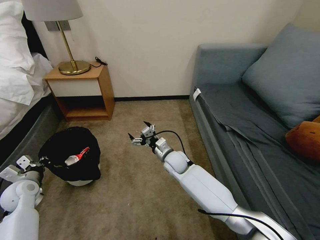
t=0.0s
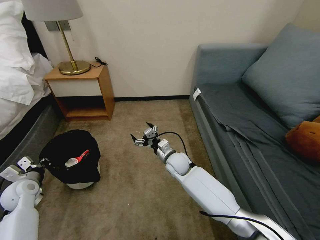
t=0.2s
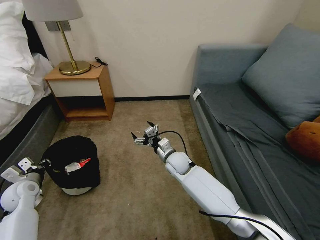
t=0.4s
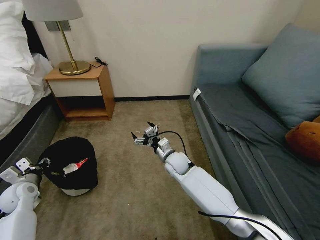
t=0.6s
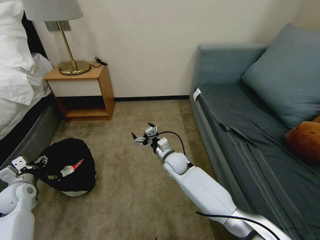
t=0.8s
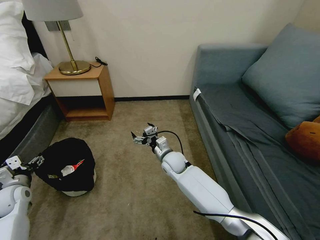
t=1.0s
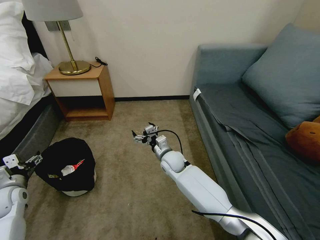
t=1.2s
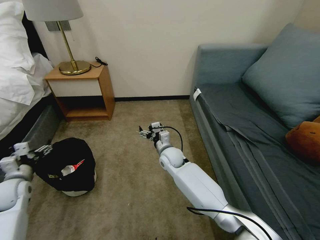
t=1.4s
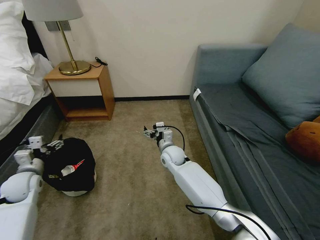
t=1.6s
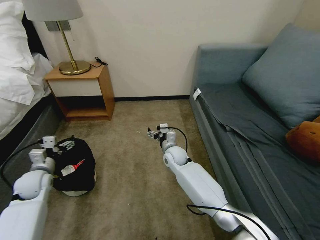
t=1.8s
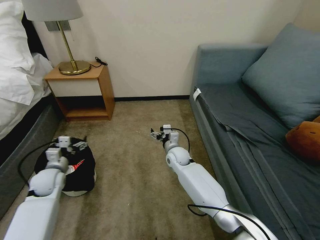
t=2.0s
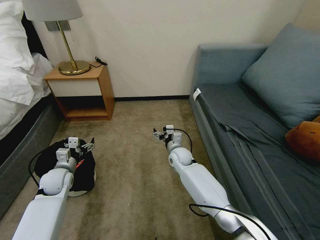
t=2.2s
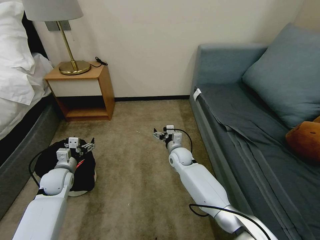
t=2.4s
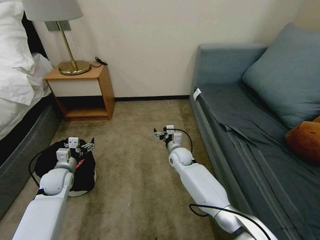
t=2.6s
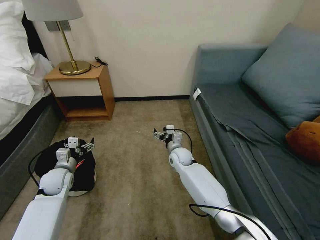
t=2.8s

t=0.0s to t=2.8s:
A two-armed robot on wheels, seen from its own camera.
Task of the whole recording: Pick up the trash bin, then pick up the garbage on the floor and place it into the trash bin.
t=0.0s to t=1.4s: The left gripper opens.
t=1.4s to t=2.8s: The right gripper moves about 5 cm. The left gripper moves to the right and forward, about 10 cm.

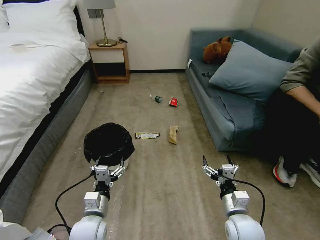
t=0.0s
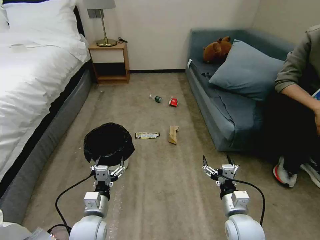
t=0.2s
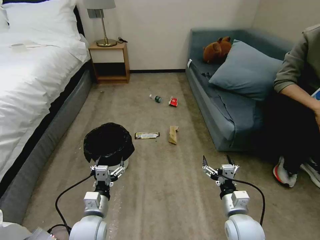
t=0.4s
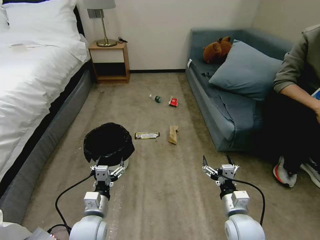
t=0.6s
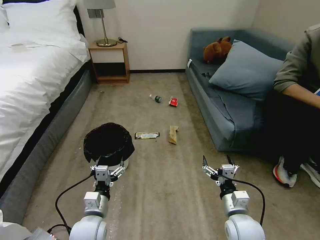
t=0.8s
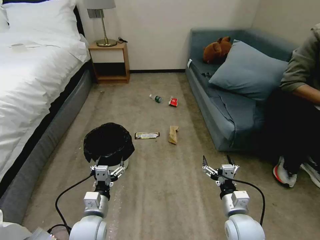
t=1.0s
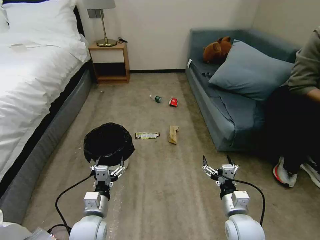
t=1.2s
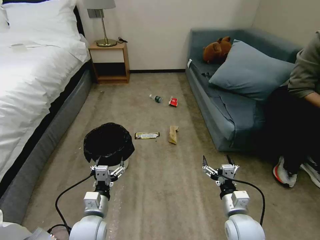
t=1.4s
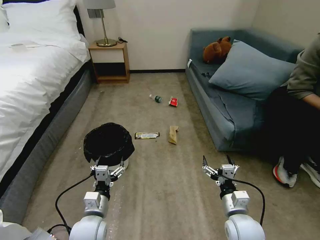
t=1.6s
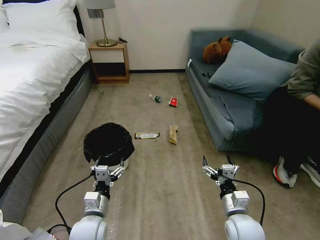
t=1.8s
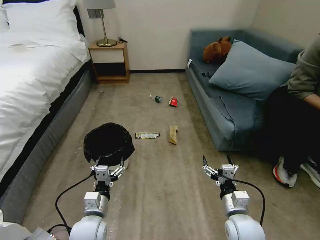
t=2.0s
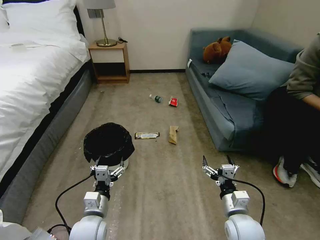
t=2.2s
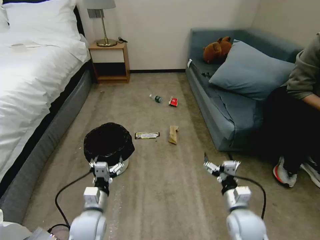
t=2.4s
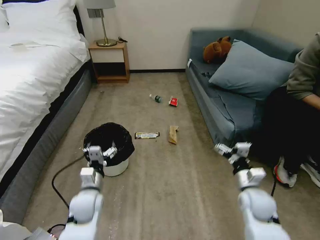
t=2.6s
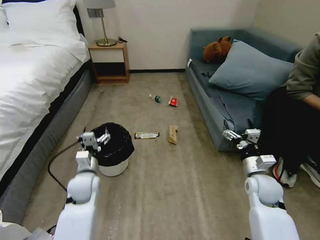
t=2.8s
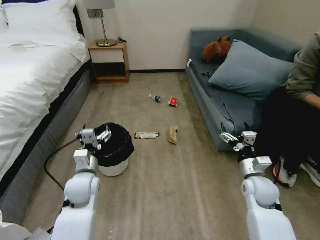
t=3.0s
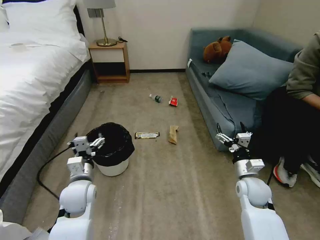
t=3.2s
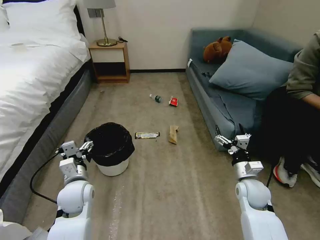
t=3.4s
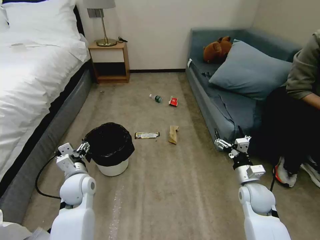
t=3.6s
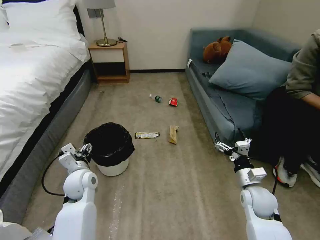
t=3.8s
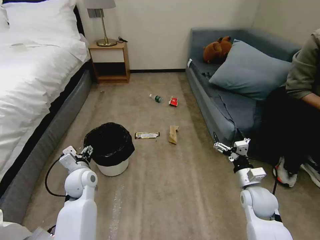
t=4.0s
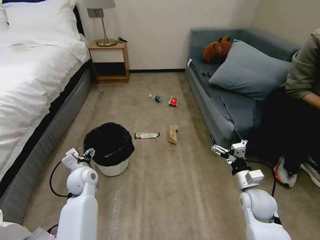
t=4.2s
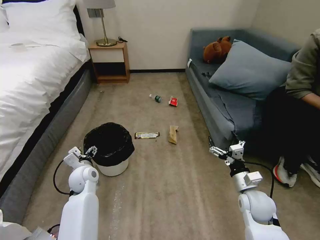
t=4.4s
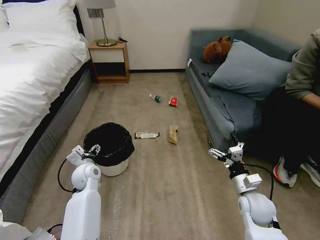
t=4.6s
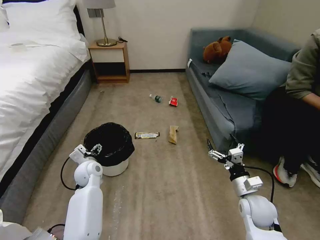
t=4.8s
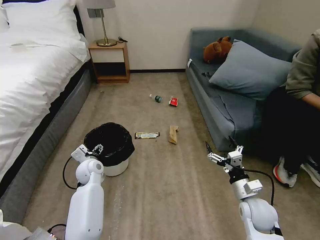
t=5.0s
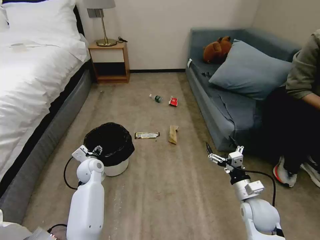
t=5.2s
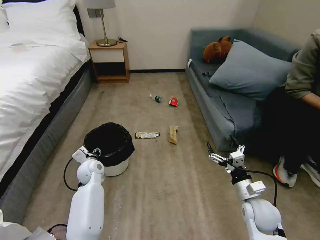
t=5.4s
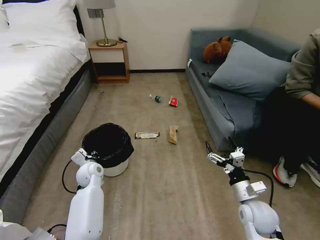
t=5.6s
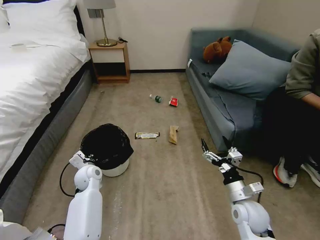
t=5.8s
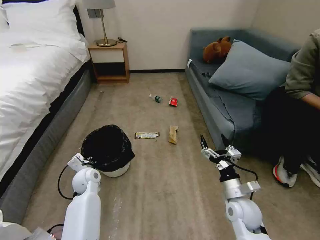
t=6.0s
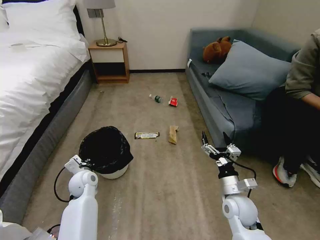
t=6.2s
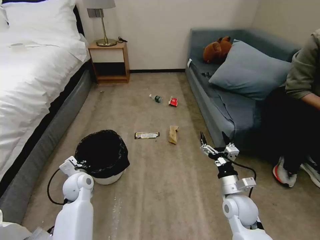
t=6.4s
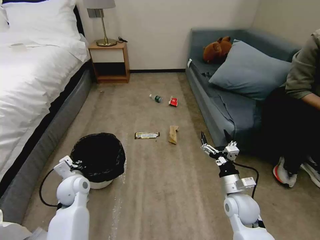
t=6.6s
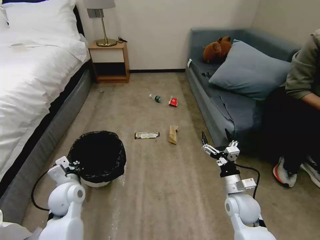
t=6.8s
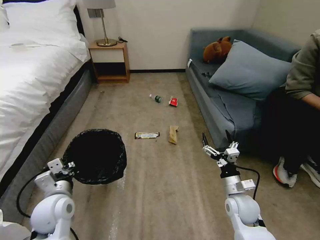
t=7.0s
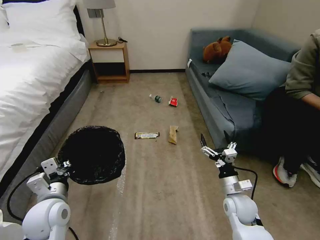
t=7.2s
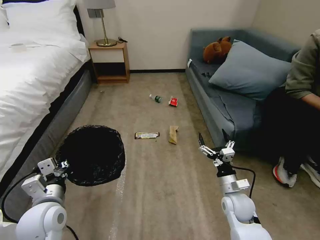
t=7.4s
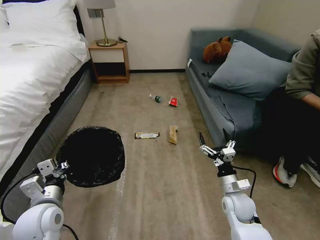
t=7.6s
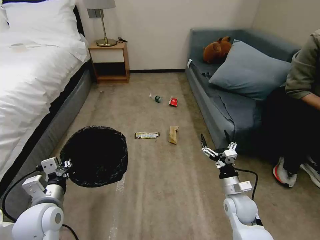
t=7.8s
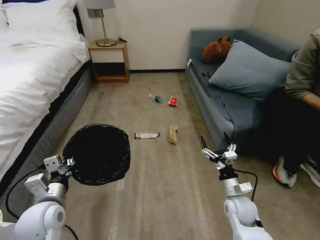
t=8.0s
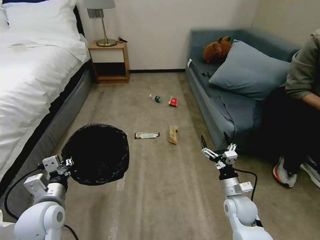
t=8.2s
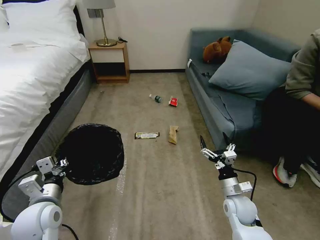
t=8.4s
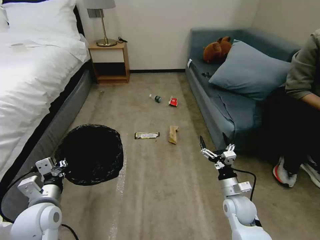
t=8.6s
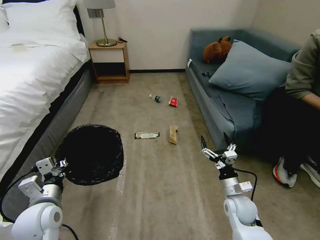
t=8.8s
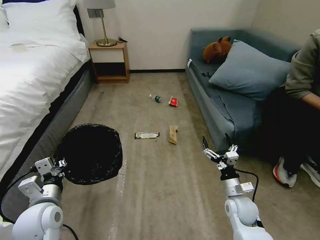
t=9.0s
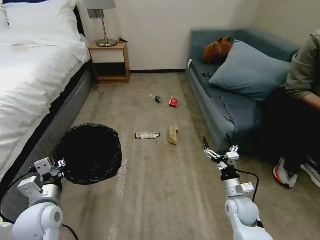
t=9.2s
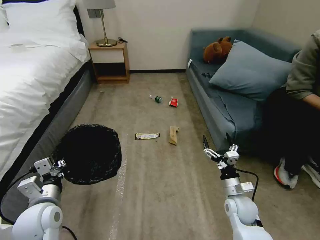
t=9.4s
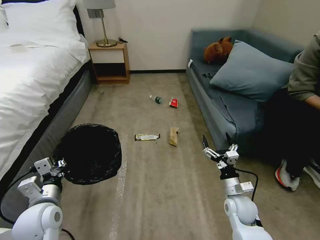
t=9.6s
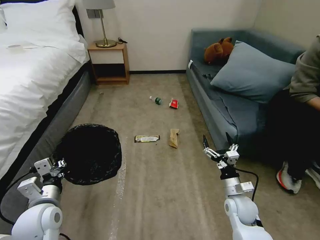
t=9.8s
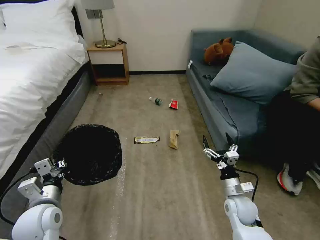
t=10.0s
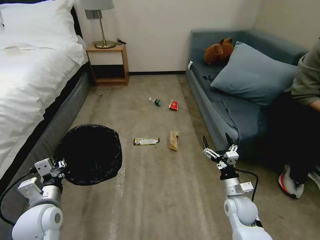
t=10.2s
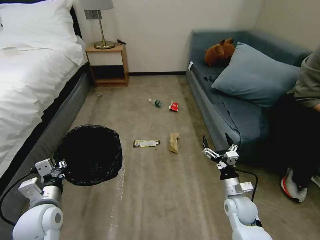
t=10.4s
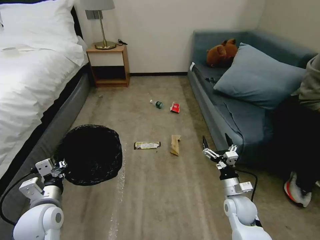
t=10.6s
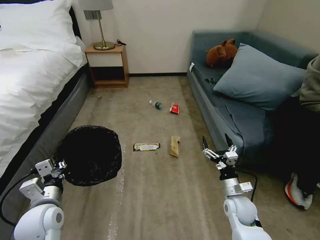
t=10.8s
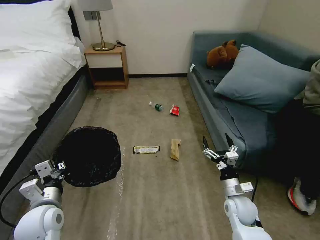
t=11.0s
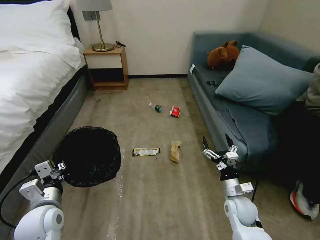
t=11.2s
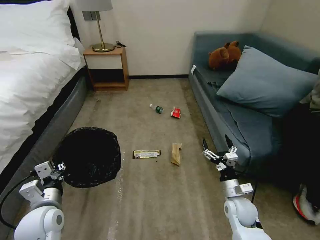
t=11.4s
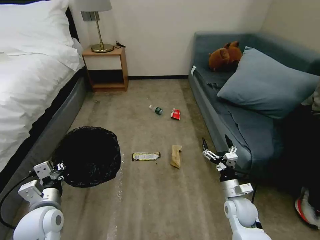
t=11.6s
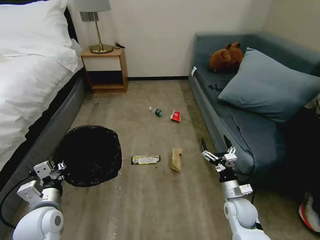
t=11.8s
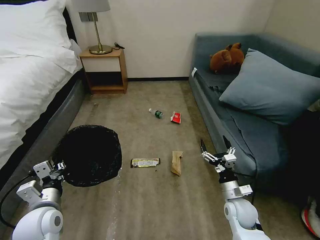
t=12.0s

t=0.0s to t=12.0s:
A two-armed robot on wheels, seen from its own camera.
Task of the whole recording: Pick up the trash bin, then pick up the garbage on the floor and place it into the trash bin.
t=1.6s to t=3.0s: The right gripper goes some 15 cm forward and to the right; the left gripper moves forward and upward, about 10 cm.
t=3.0s to t=4.4s: The left gripper travels forward by roughly 5 cm.
t=4.4s to t=6.0s: The left gripper closes up, while the right gripper changes place by approximately 5 cm.
t=6.0s to t=7.6s: The left gripper heads backward and upward, covering approximately 20 cm.
t=7.6s to t=9.0s: The grippers make only small movements.
t=9.0s to t=10.4s: Neither gripper changes place.

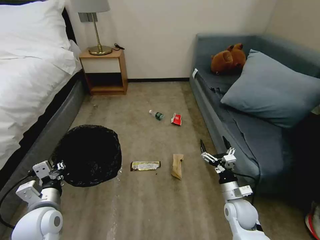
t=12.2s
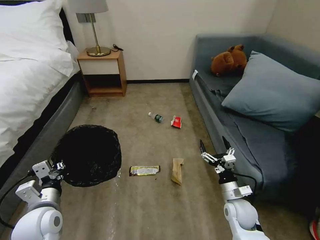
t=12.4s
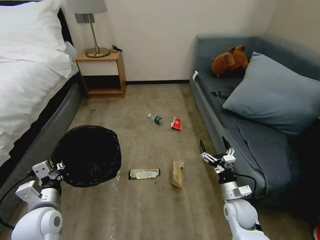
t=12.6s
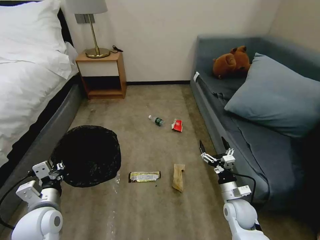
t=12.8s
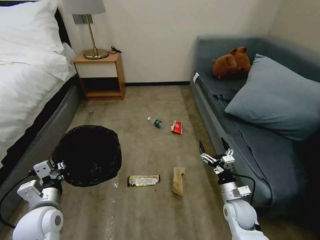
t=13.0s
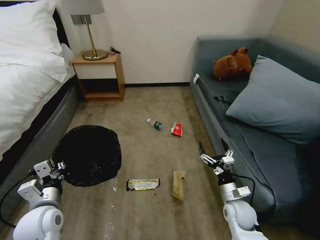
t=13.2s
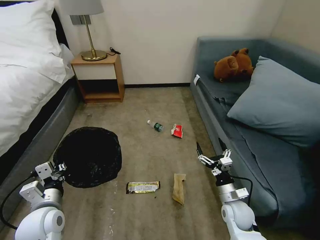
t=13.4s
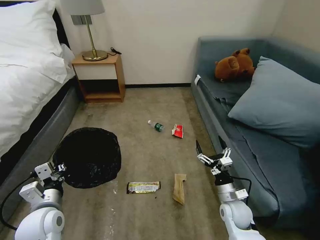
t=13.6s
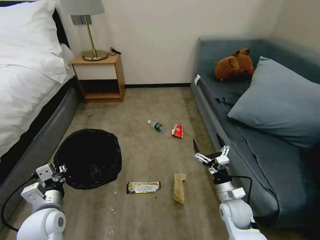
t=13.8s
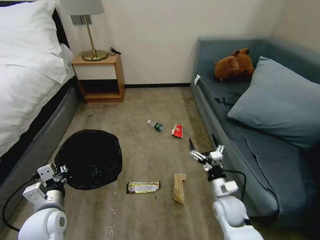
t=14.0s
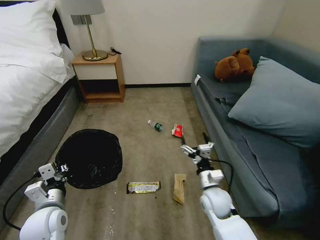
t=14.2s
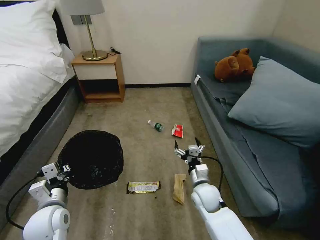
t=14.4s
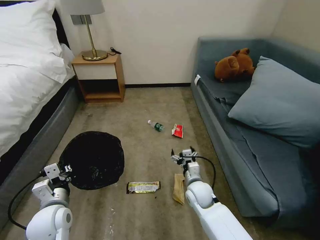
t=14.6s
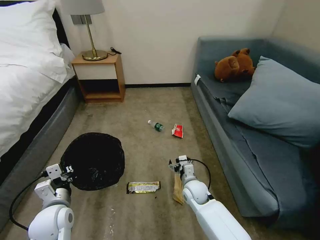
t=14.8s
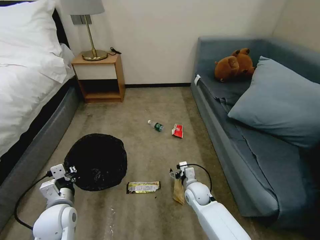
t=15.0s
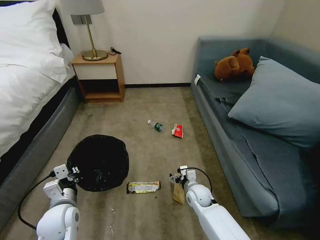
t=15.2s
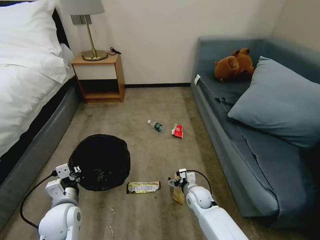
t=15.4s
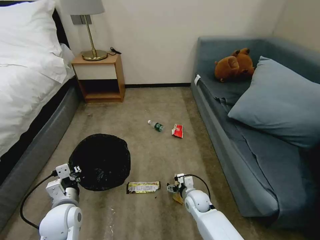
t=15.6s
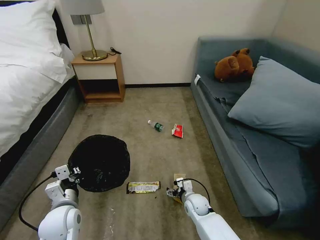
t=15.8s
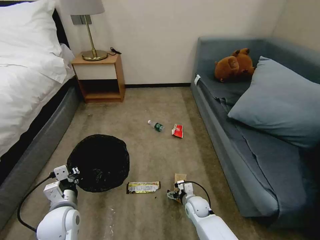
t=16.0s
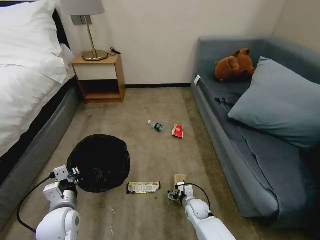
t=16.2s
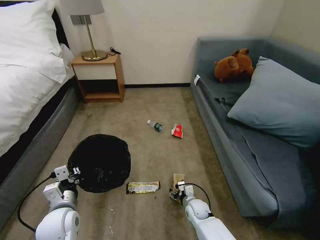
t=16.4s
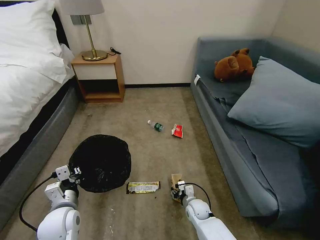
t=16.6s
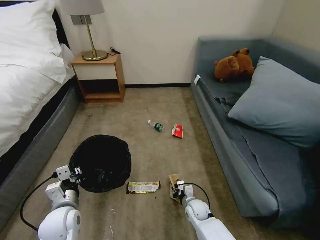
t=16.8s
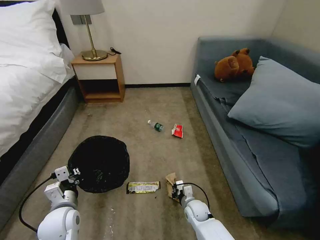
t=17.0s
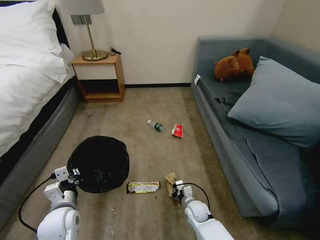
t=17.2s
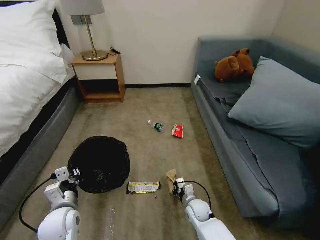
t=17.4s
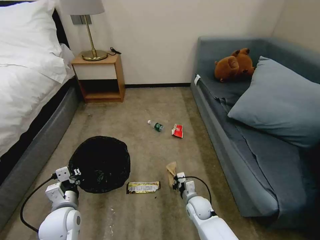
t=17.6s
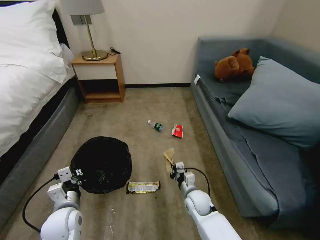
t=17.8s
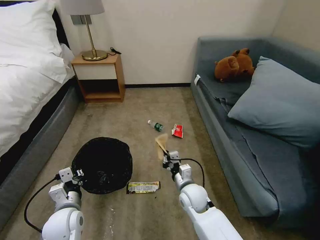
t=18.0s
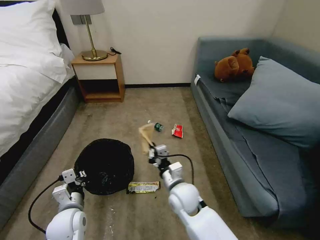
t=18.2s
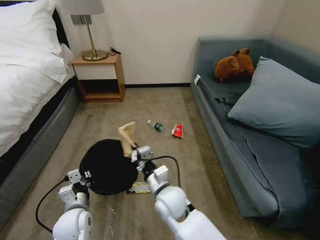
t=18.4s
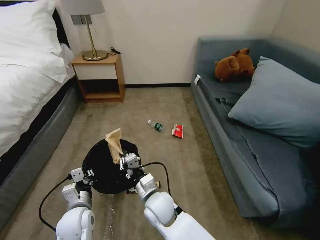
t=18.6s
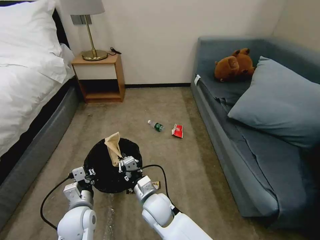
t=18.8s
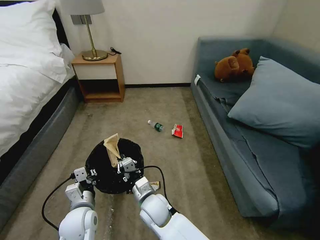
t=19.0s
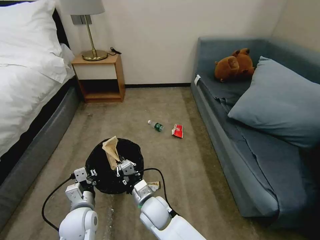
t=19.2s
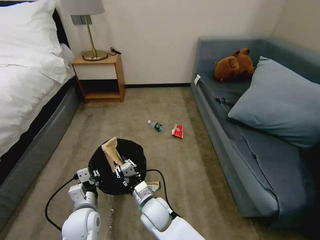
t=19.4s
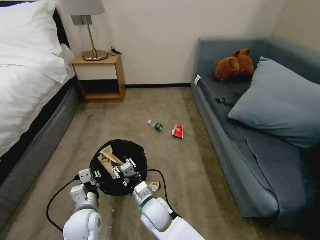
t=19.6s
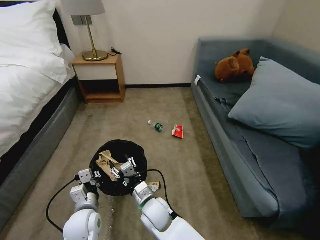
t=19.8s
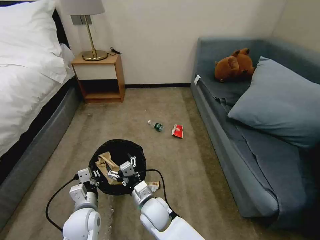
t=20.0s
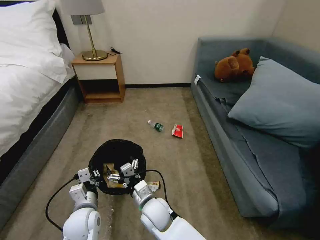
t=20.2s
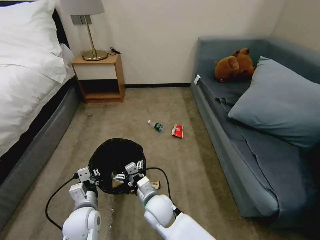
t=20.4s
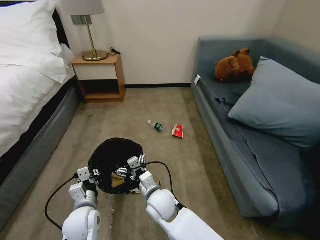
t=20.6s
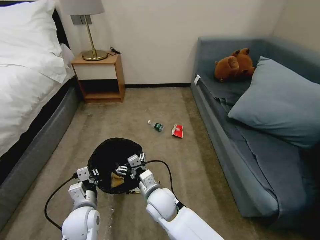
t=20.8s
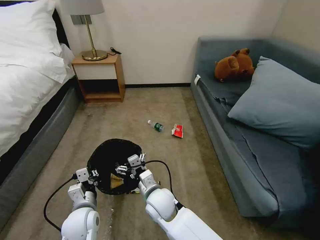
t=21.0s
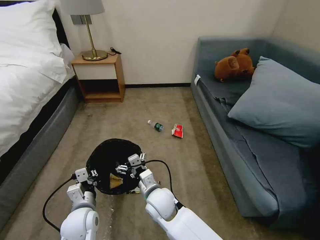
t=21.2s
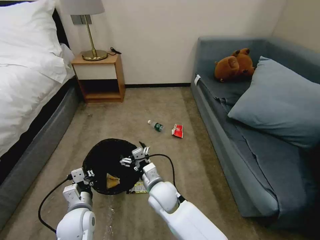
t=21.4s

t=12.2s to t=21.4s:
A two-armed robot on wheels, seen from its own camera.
Task of the whole recording: Pick up the trash bin, then pick up the garbage on the floor and place it into the trash bin.
t=13.8s to t=15.2s: The right gripper goes roughly 15 cm to the left, forward and downward.
t=15.2s to t=16.8s: The right gripper is displaced downward by approximately 5 cm, and closes up.
t=16.8s to t=18.4s: The right gripper is displaced upward and to the left by some 20 cm.
t=18.4s to t=19.8s: The right gripper is displaced to the left and downward by approximately 10 cm, and opens.
t=19.8s to t=21.4s: The right gripper changes place by some 5 cm, and opens its fingers.
